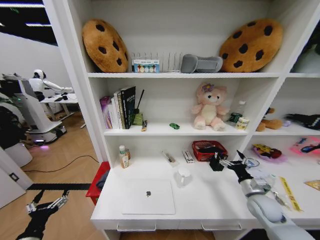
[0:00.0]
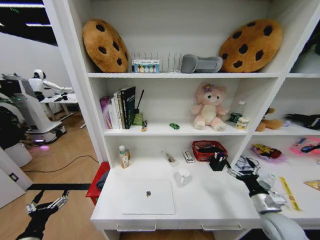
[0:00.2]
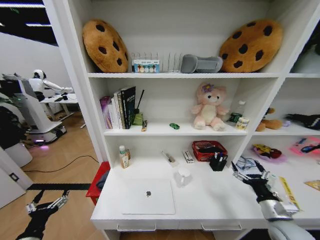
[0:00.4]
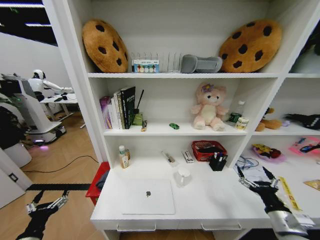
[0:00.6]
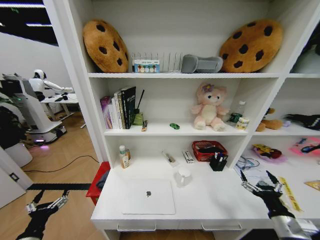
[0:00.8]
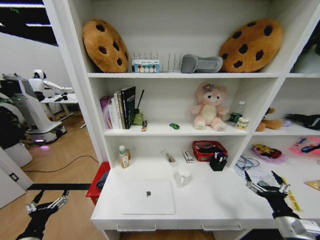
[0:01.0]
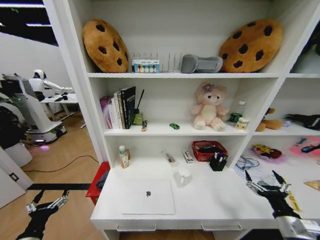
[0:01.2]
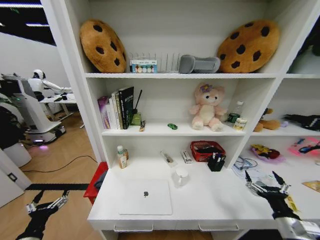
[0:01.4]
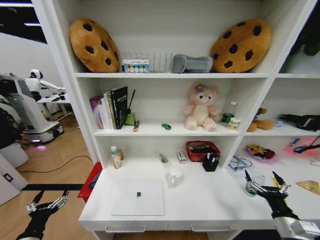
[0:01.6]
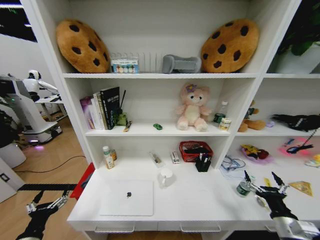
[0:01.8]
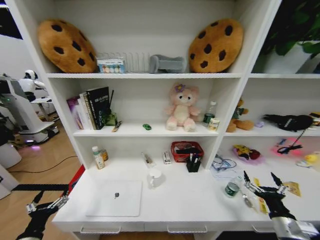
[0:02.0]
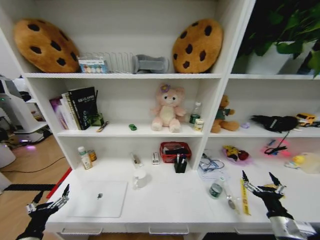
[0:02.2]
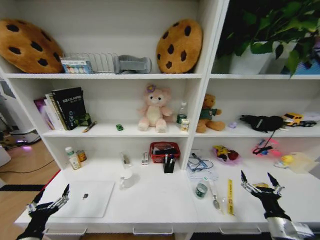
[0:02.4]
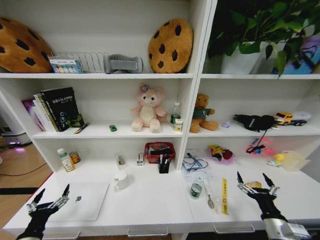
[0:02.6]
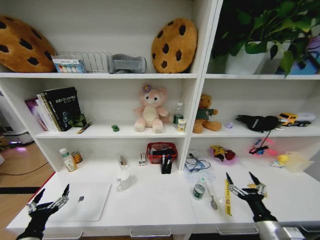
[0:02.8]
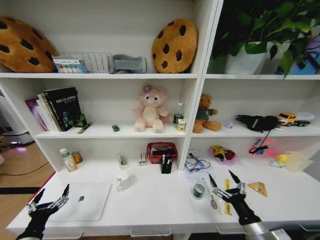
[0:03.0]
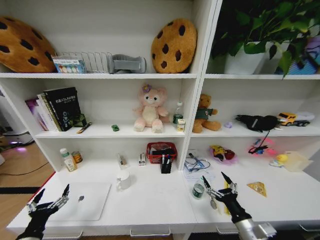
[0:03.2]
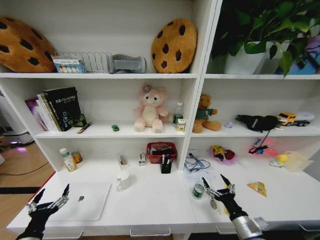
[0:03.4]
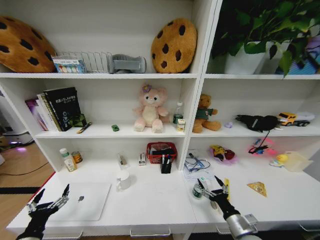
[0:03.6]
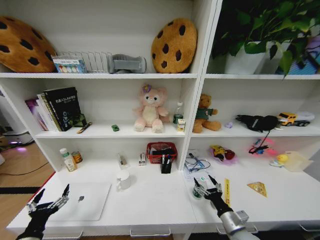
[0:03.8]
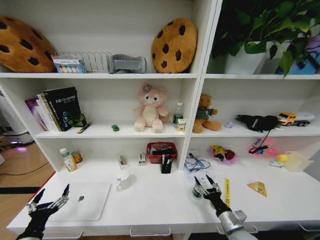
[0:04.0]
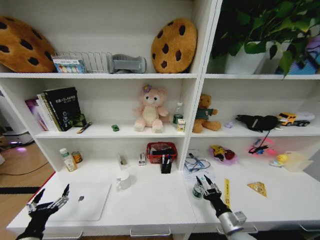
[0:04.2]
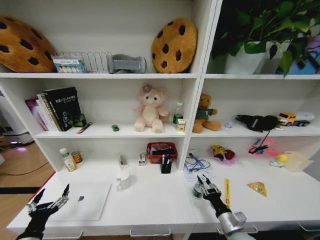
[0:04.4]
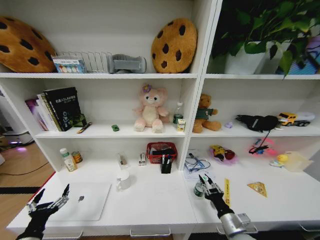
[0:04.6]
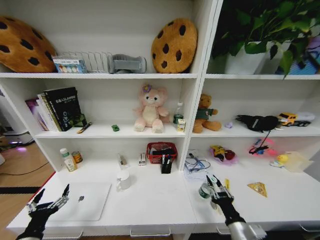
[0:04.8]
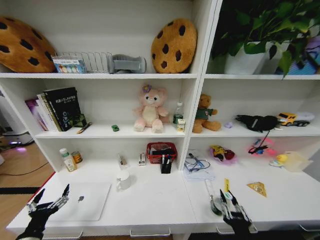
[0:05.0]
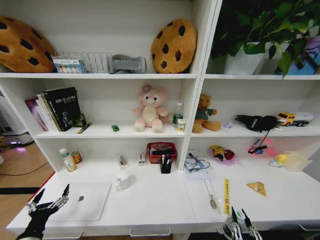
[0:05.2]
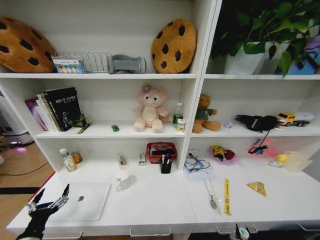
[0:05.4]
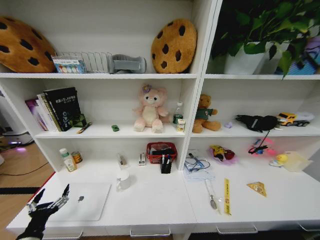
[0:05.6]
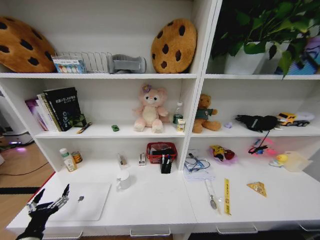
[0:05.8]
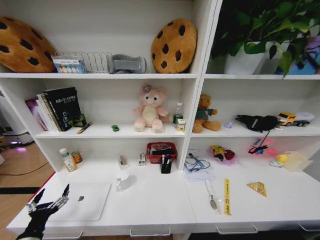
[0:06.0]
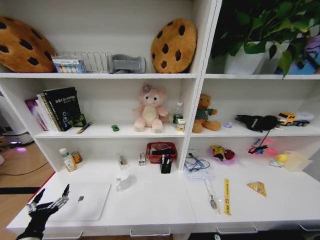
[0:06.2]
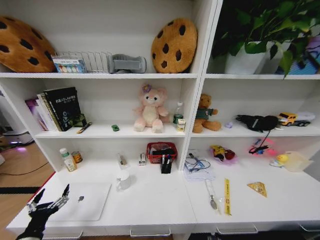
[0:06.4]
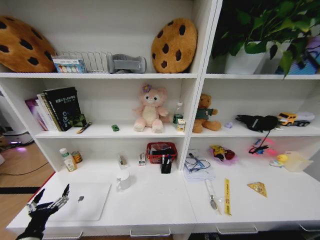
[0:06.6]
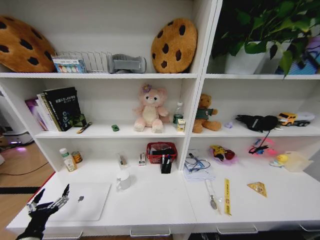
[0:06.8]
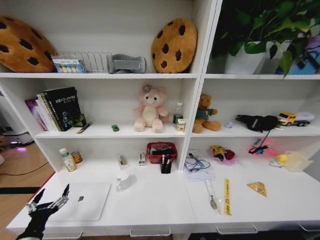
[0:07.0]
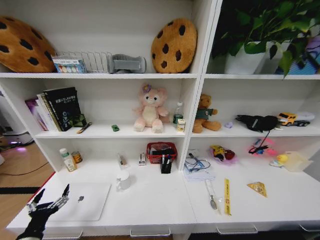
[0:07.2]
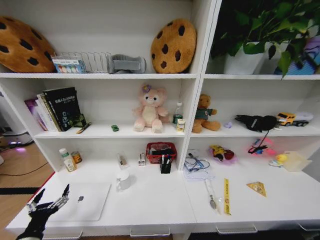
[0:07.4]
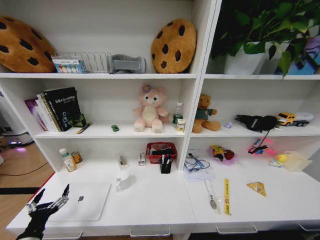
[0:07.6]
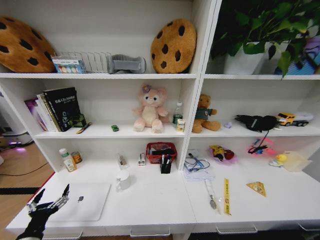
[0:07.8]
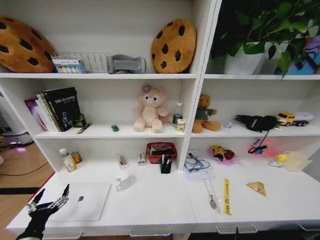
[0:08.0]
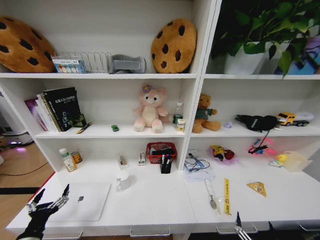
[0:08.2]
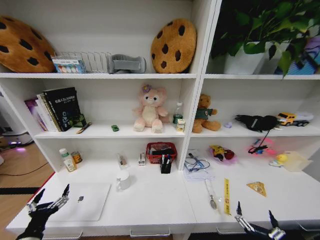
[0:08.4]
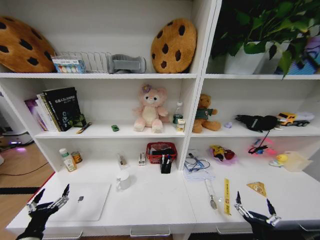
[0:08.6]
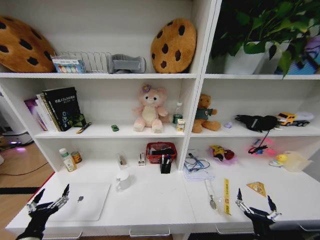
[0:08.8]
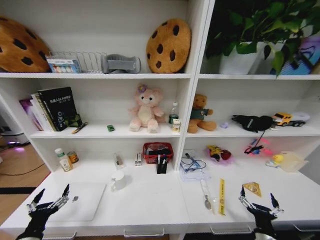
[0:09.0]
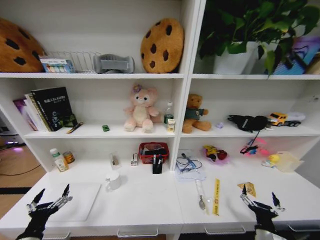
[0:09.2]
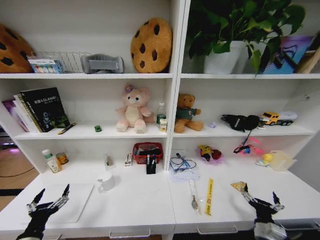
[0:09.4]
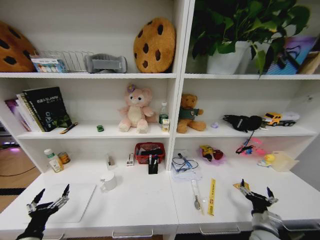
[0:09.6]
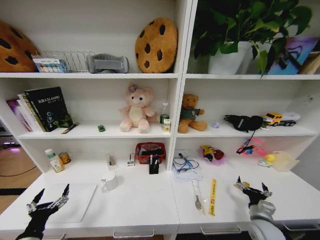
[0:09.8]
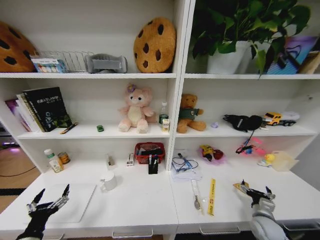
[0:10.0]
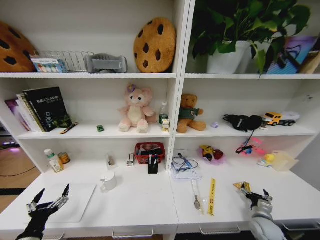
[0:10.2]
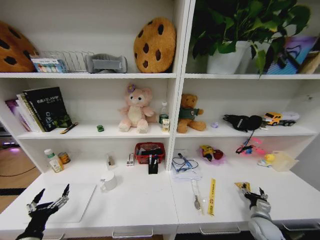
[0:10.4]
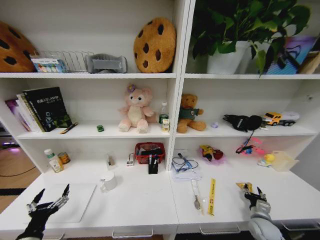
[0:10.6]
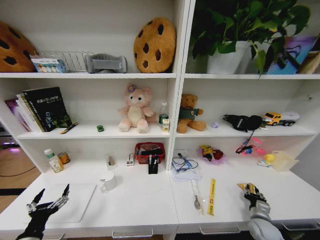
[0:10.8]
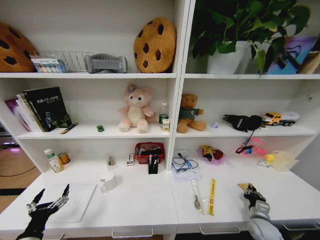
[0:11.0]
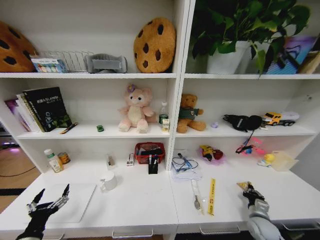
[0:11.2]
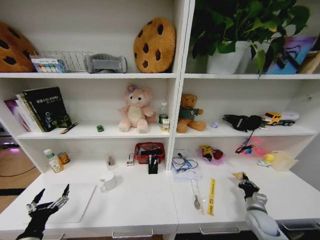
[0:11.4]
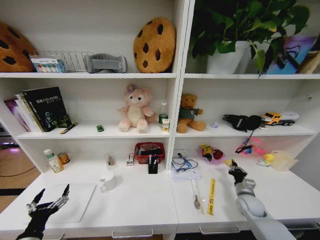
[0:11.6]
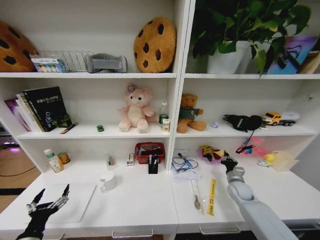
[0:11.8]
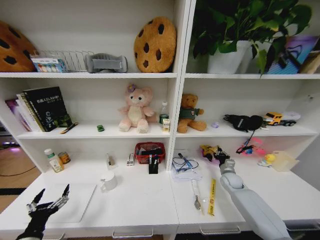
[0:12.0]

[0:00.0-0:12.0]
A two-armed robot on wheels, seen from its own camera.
Task of the whole recording: Organize the objects on the table.
0:00.0 to 0:01.6: The right gripper heads backward, covering some 15 cm.
0:01.6 to 0:03.0: The right gripper travels to the left by about 10 cm.
0:03.0 to 0:04.4: The right gripper heads downward, covering roughly 5 cm, and closes up.
0:04.4 to 0:06.0: The right gripper shifts approximately 30 cm downward and backward.
0:07.6 to 0:09.0: The right gripper travels forward, upward and to the right by roughly 25 cm.
0:09.0 to 0:10.4: The right gripper is displaced forward and to the right by some 15 cm.
0:10.4 to 0:12.0: The right gripper is displaced forward by approximately 20 cm, and closes its fingers.

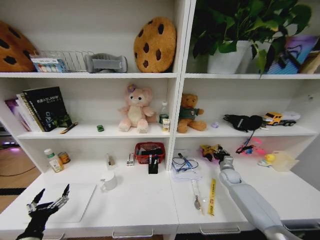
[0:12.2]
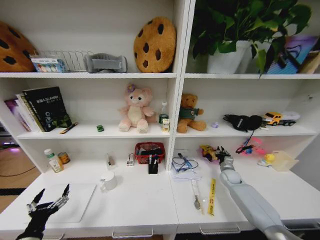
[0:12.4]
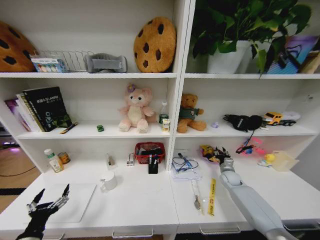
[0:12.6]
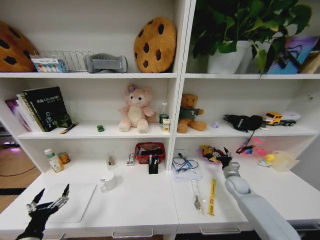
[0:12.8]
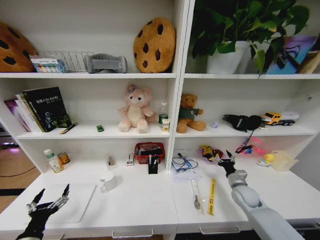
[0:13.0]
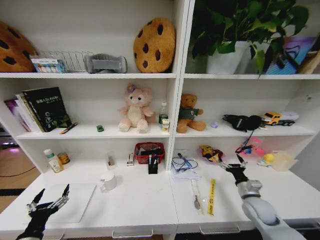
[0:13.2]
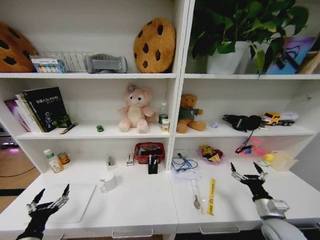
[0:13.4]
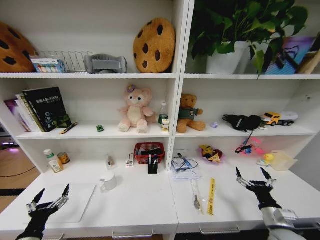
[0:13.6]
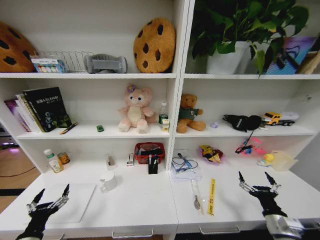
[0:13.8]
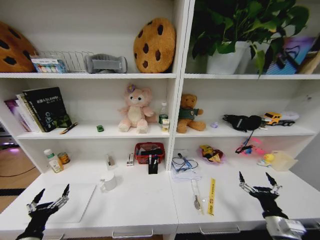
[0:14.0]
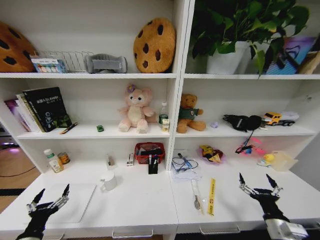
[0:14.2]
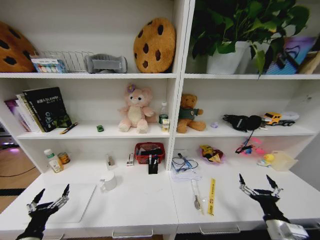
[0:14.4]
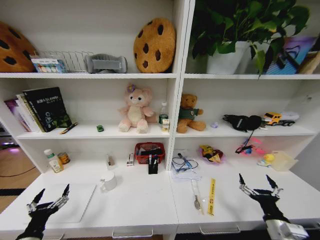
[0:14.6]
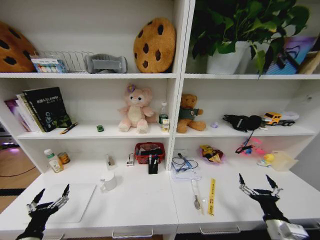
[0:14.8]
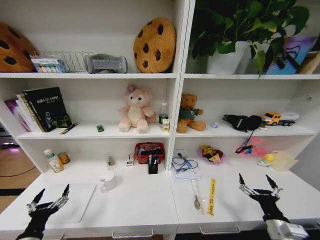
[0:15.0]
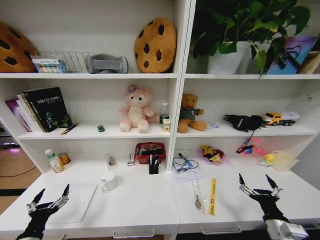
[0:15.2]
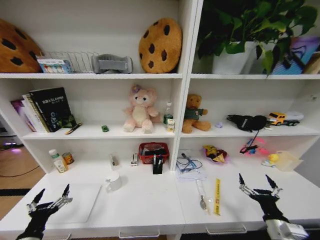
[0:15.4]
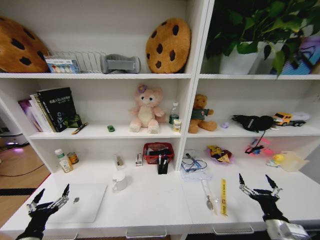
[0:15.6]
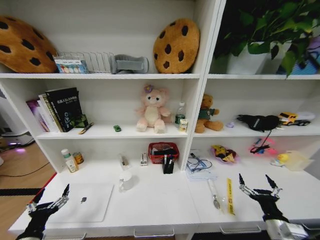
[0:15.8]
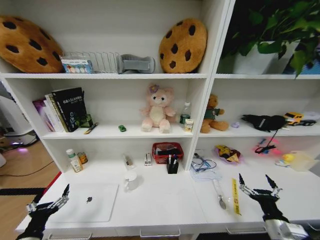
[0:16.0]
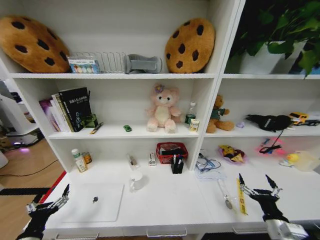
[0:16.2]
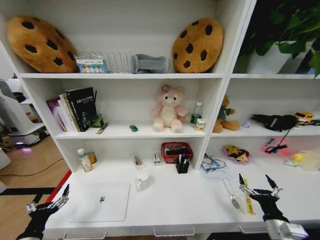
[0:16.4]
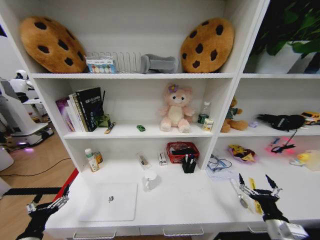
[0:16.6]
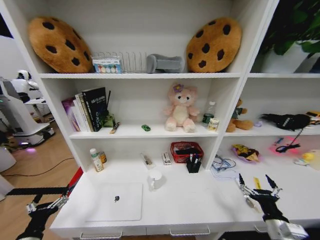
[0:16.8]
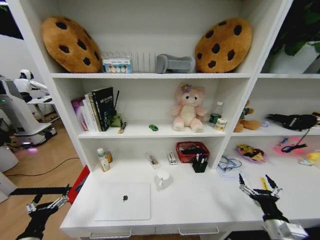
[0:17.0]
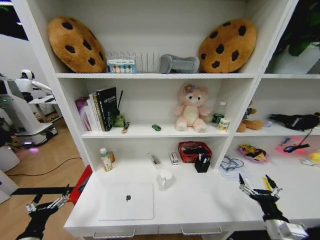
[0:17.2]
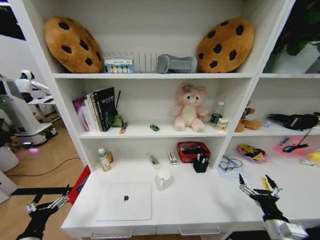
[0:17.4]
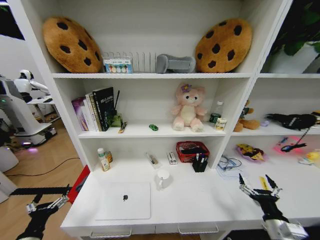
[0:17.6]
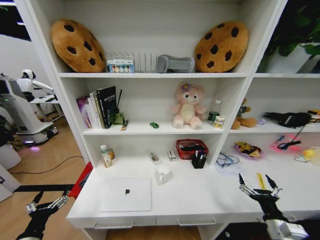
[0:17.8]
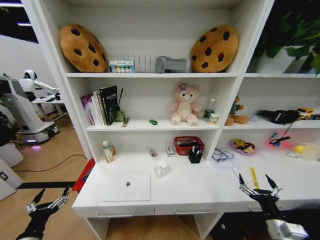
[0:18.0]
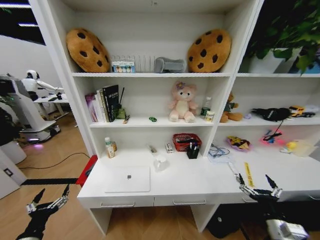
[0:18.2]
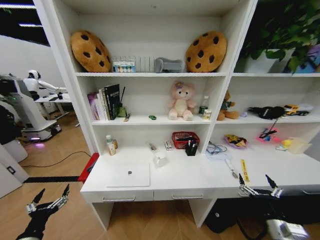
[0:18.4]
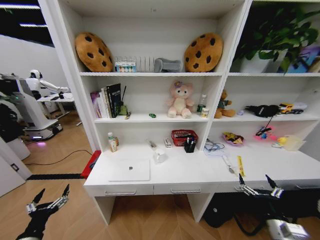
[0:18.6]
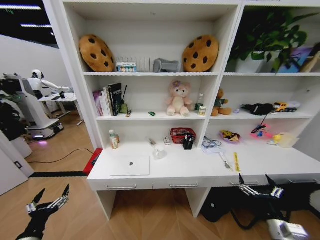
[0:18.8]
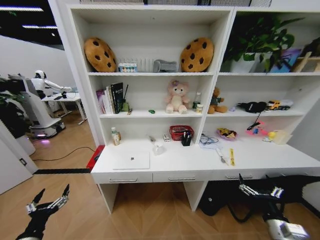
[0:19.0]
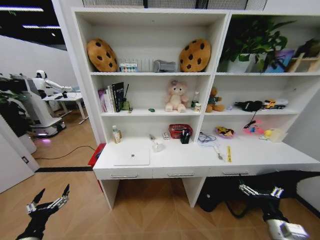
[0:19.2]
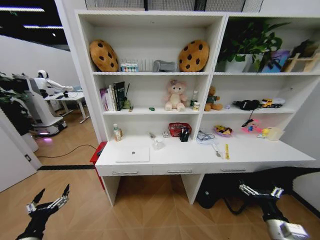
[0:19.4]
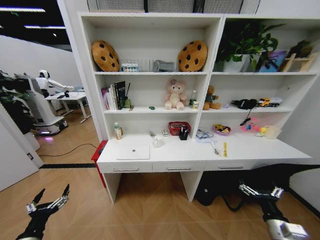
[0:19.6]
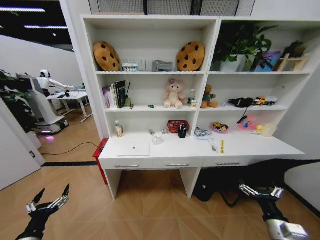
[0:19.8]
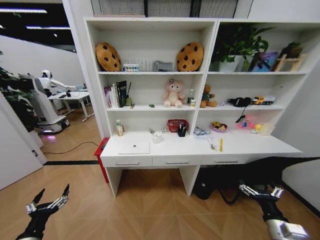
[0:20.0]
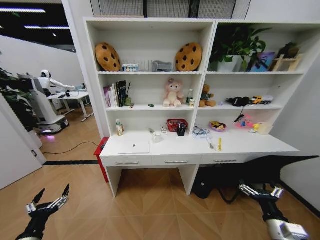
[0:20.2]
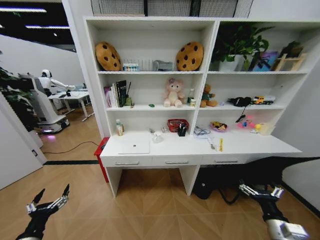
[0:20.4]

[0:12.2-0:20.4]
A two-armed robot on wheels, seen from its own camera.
Task of the whole recording: Organize the objects on the table.
0:12.2 to 0:13.8: The right gripper is displaced backward by roughly 30 cm, and opens up.
